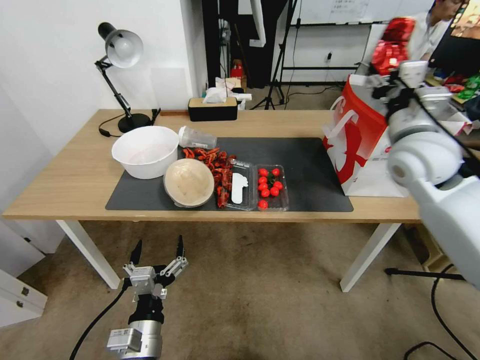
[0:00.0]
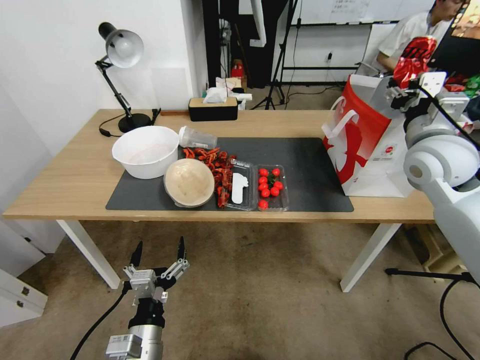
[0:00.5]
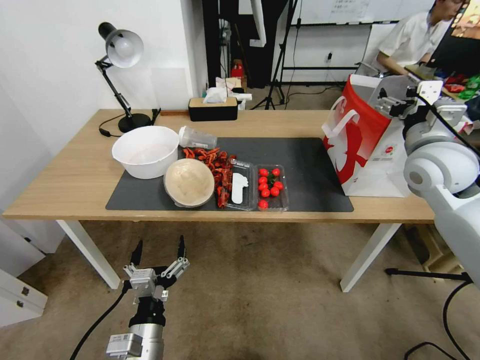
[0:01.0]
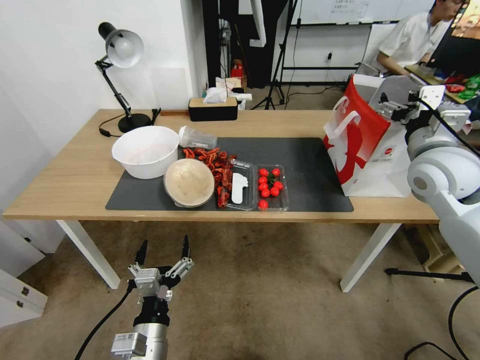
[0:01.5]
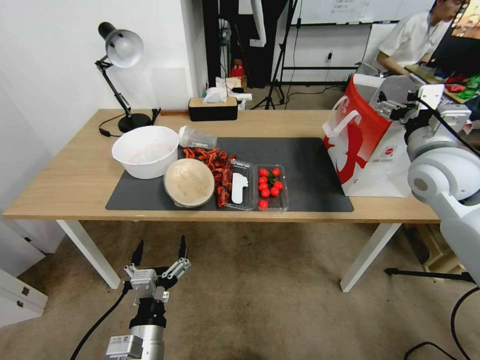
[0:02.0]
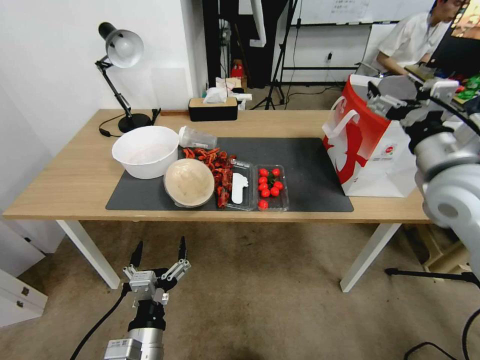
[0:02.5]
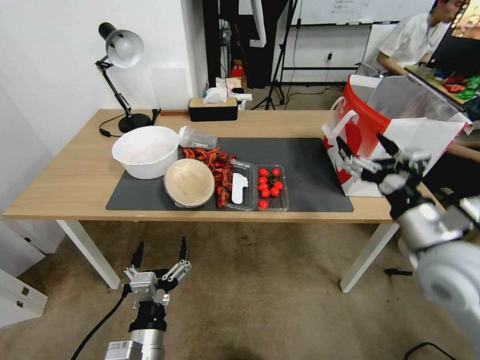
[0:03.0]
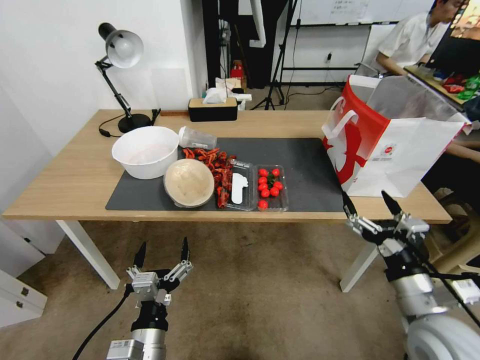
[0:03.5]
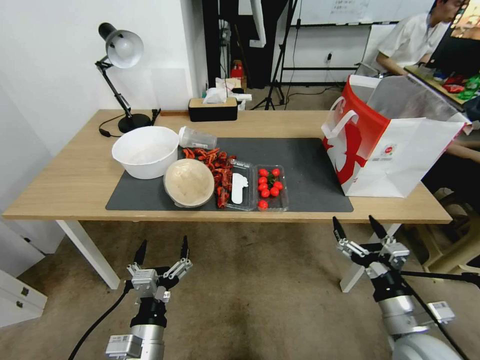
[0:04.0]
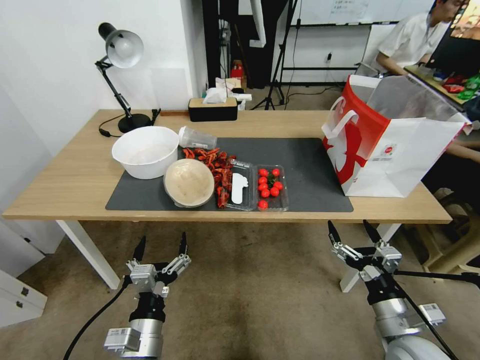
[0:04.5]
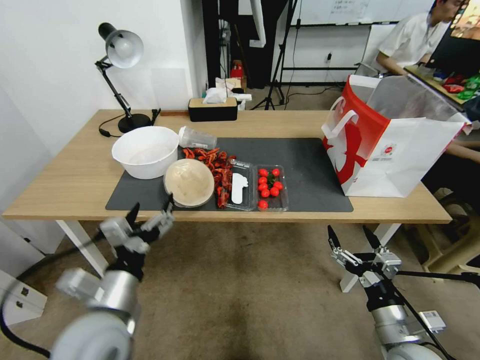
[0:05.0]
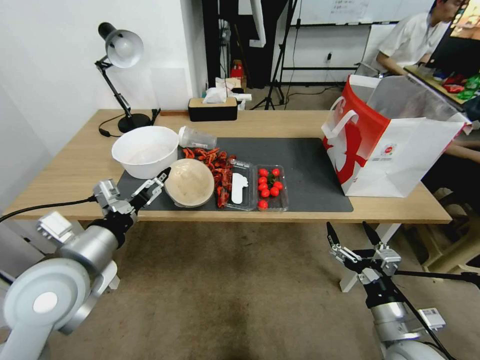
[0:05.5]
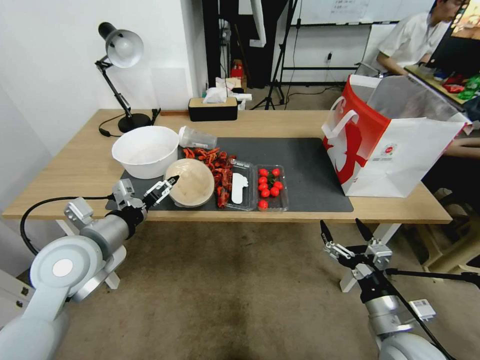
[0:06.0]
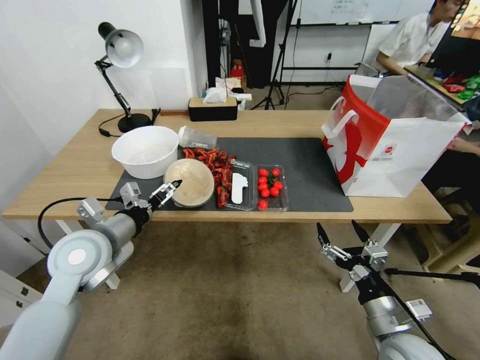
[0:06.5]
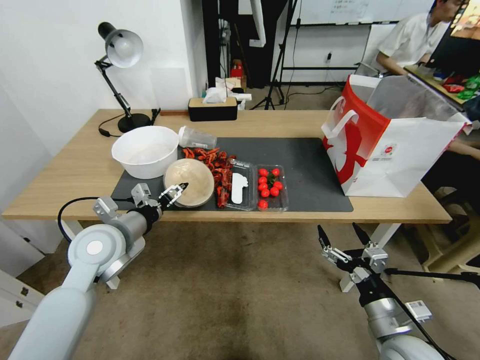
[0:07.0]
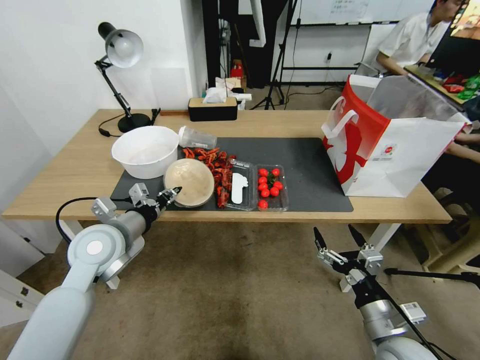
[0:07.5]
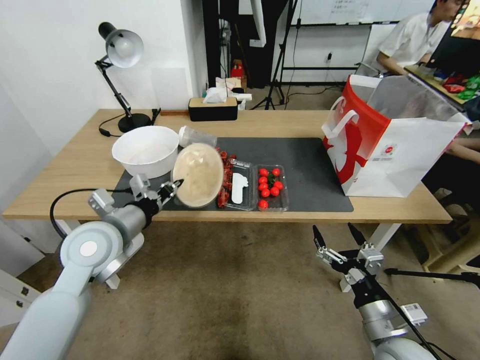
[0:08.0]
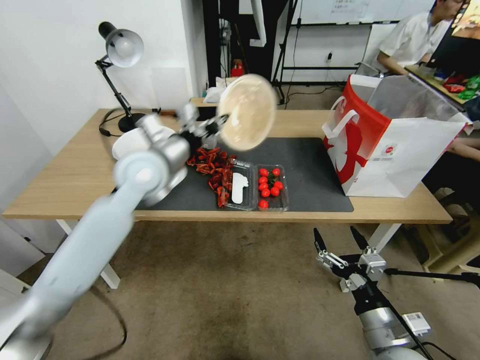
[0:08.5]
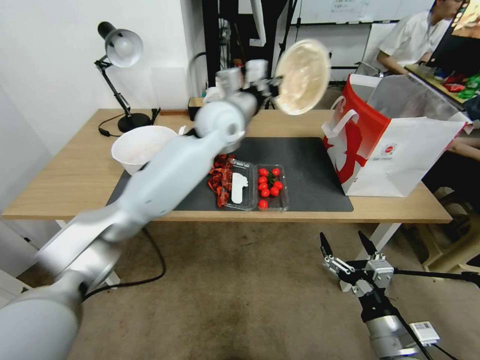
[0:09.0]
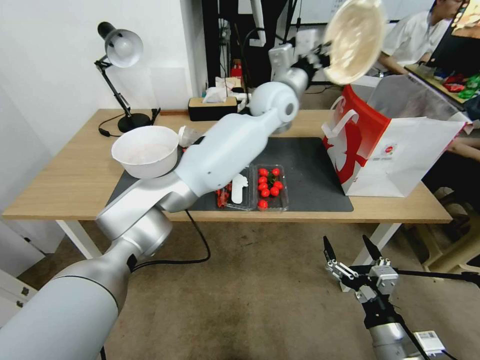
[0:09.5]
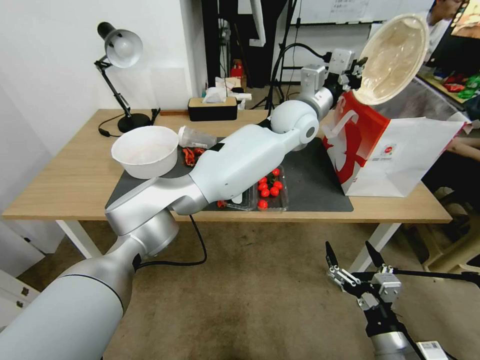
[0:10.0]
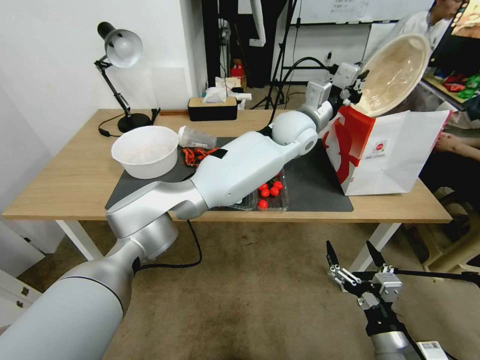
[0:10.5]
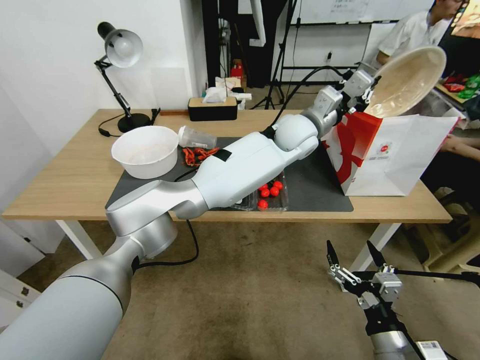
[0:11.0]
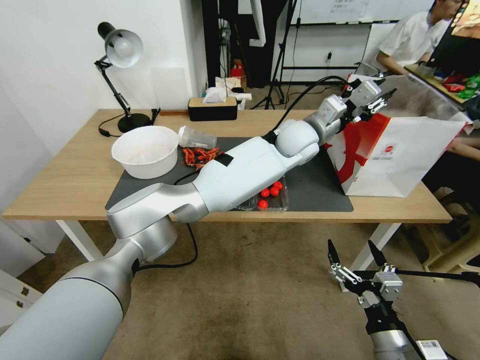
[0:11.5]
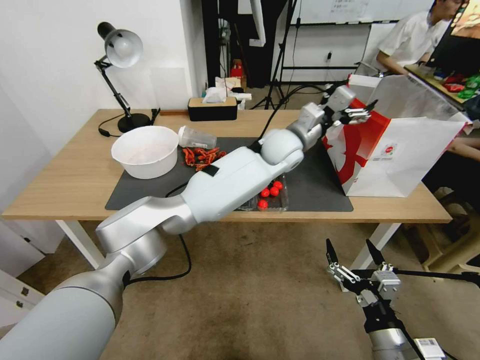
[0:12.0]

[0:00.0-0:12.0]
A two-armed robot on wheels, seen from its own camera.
0:00.0 to 0:02.0: The right gripper opens its fingers.
0:02.0 to 0:04.0: The right gripper shifts roughly 35 cm downward and backward.
0:04.0 to 0:06.0: The left gripper is displaced upward, forward and to the left by approximately 25 cm.
0:06.0 to 0:08.0: The left gripper closes its fingers.
0:08.0 to 0:10.0: The right gripper shifts some 5 cm backward. The left gripper heads to the right and forward, covering about 40 cm.
0:10.0 to 0:12.0: The left gripper shifts about 5 cm downward, and opens up.

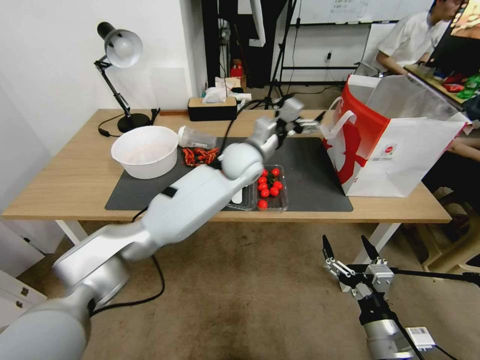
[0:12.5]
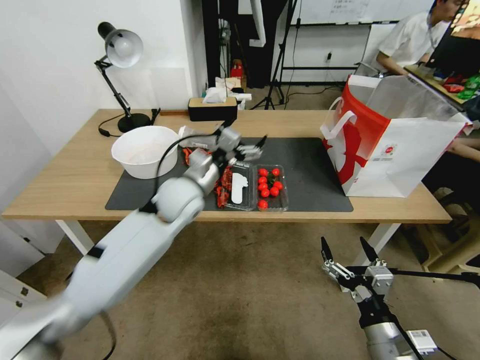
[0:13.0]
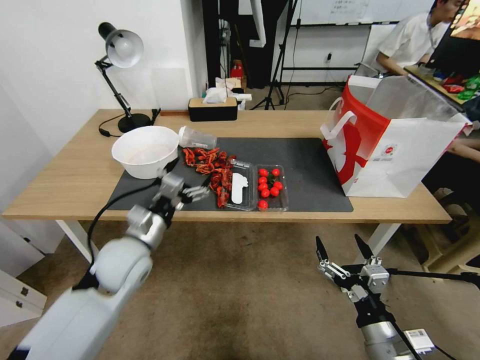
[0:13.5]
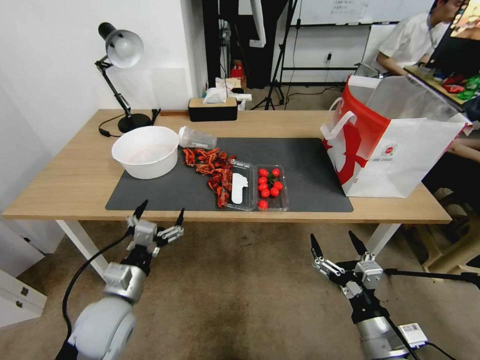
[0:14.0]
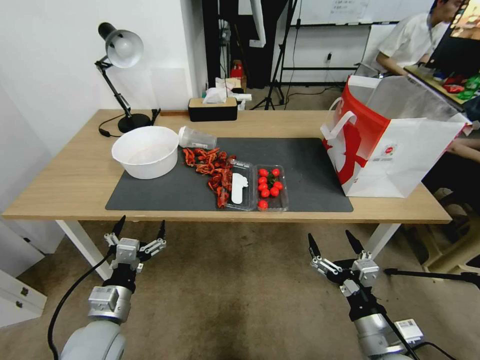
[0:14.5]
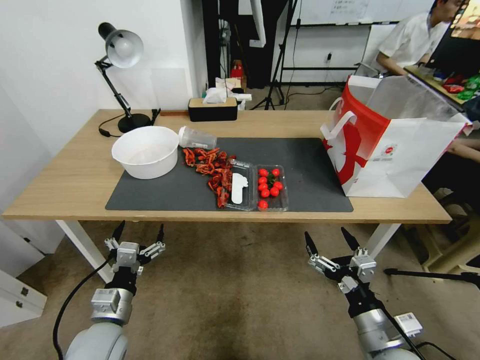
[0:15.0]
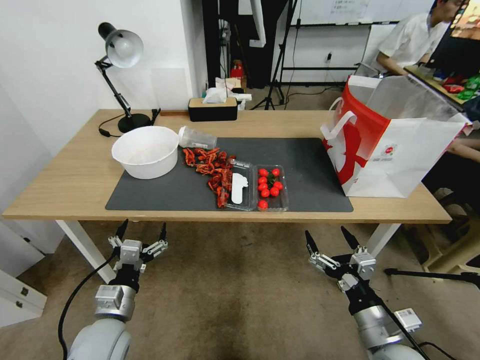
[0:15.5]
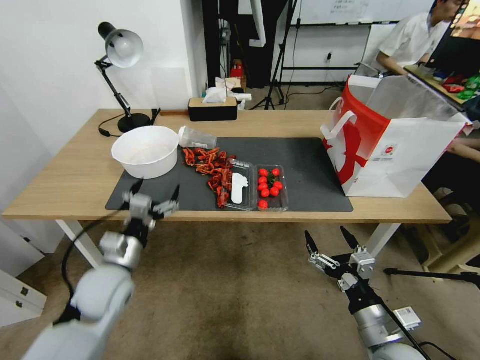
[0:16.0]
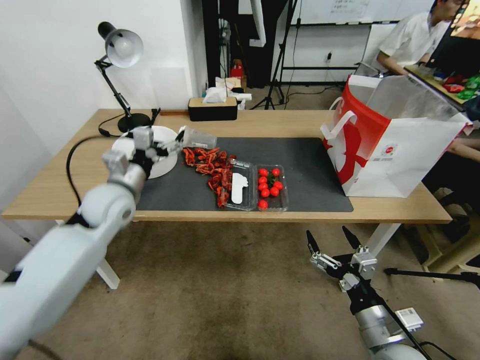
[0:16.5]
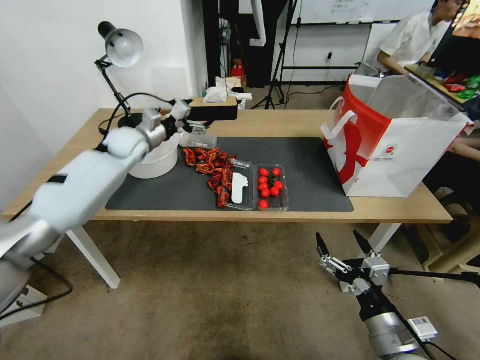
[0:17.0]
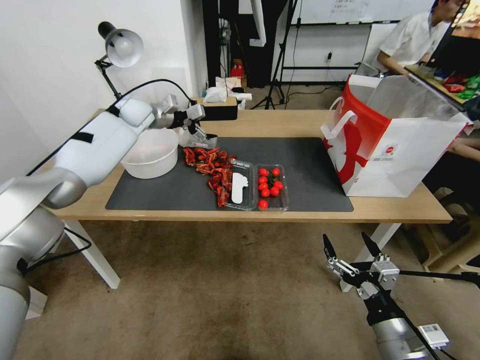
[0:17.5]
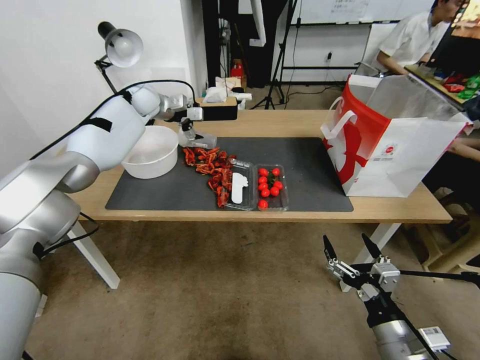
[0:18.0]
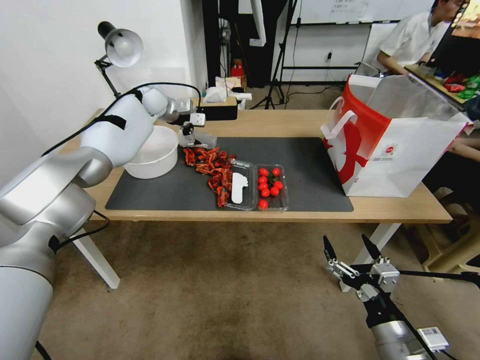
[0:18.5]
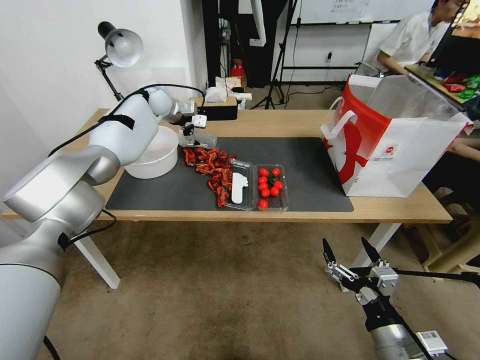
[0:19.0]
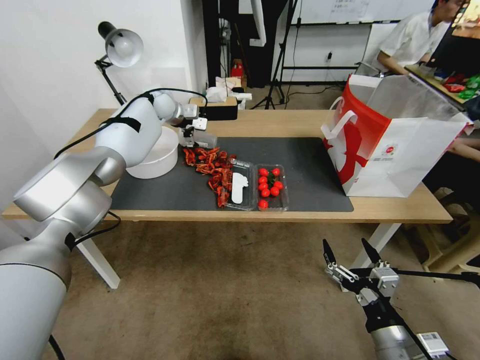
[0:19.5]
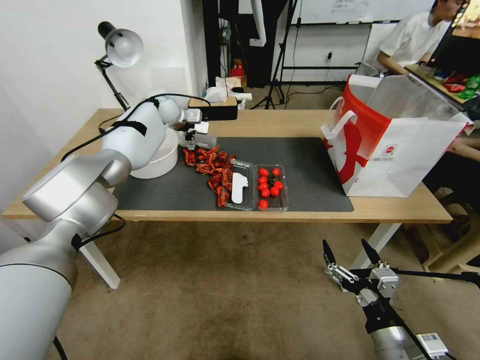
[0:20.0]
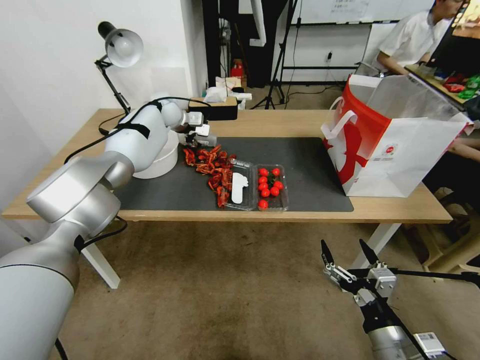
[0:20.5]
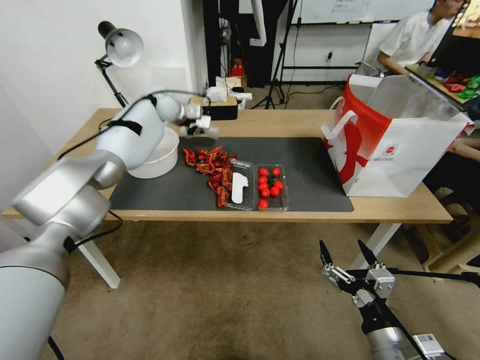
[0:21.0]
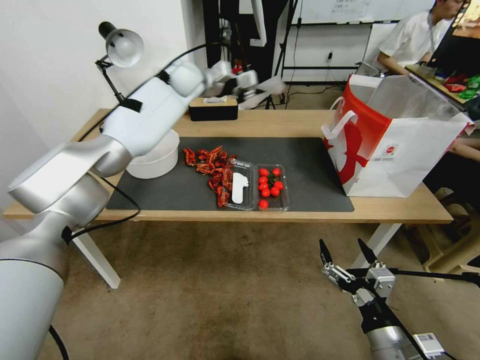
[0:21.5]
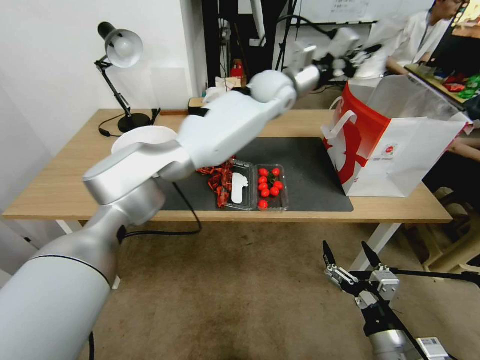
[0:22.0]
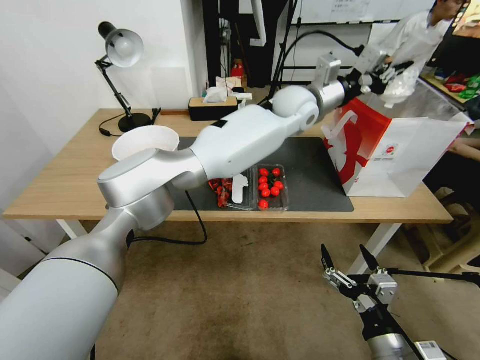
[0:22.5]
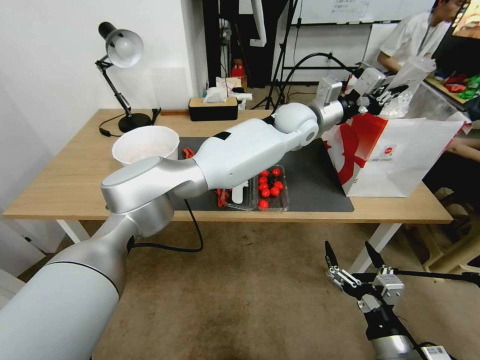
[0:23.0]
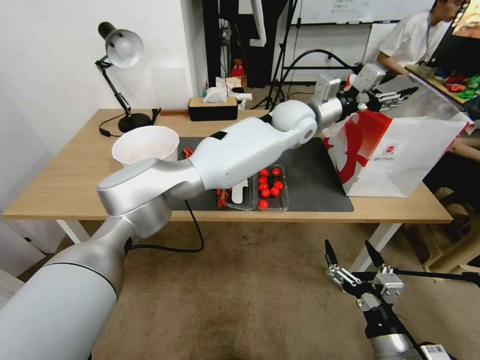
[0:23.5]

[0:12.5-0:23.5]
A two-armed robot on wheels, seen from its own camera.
0:12.5 to 0:14.5: The left gripper goes about 50 cm backward, to the left and downward.
0:14.5 to 0:16.0: The left gripper travels forward and upward by some 10 cm.
0:16.0 to 0:18.0: The left gripper travels forward and upward by approximately 50 cm.
0:18.0 to 0:20.0: The left gripper changes place by about 5 cm.
0:20.0 to 0:21.5: The left gripper moves upward and to the right, about 10 cm, and closes its fingers.
0:21.5 to 0:23.5: The left gripper moves to the right and backward, roughly 30 cm, and opens up.

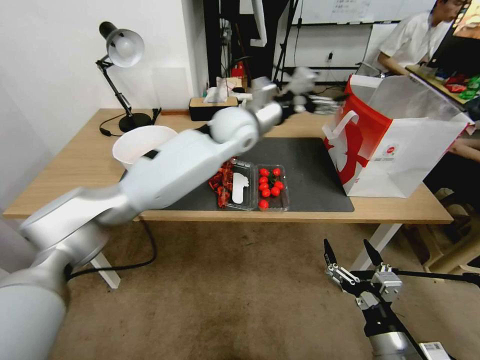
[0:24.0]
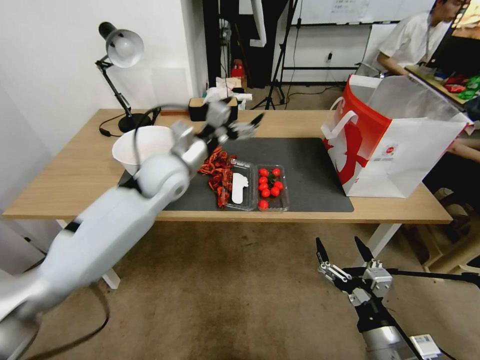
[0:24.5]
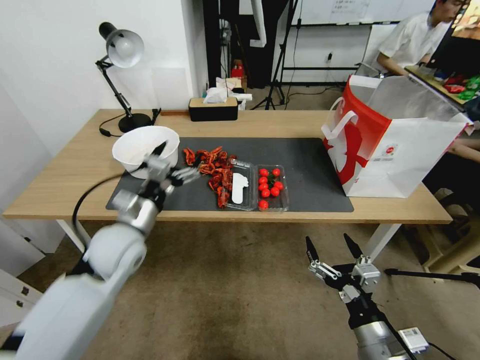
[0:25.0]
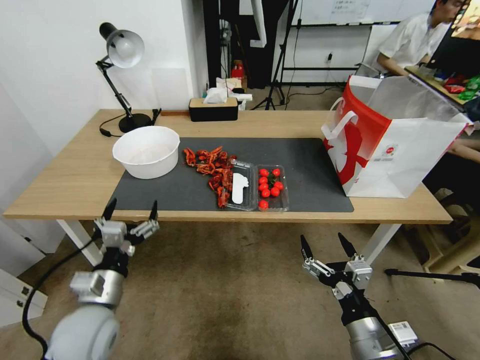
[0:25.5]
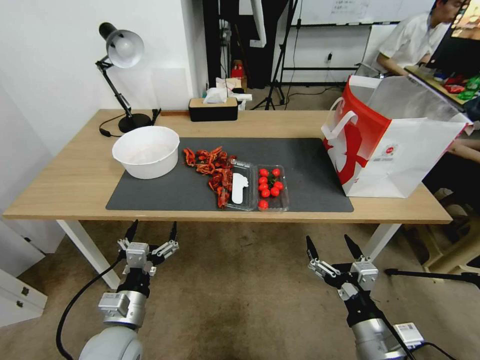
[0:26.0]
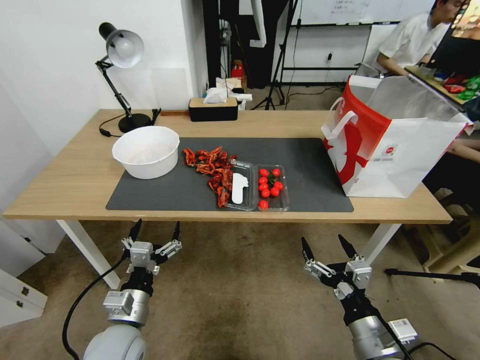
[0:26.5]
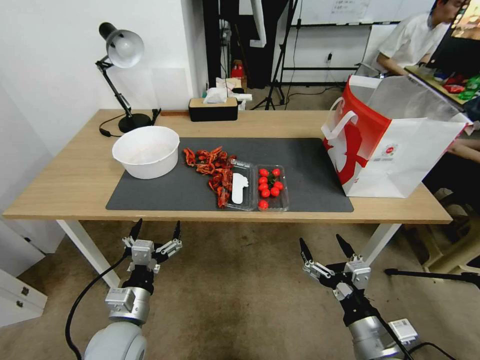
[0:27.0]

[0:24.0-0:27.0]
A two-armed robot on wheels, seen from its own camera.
0:24.0 to 0:25.5: The left gripper goes roughly 50 cm backward, to the left and downward.
0:25.5 to 0:27.0: The left gripper changes place by some 5 cm.
